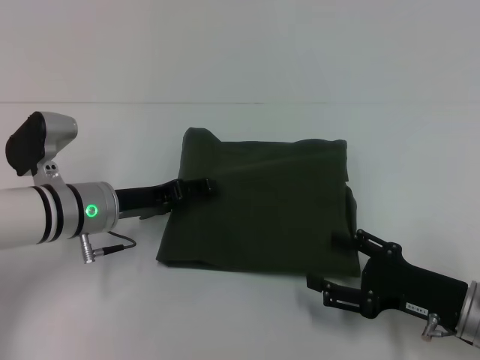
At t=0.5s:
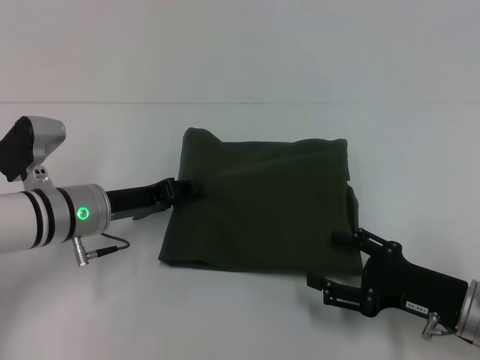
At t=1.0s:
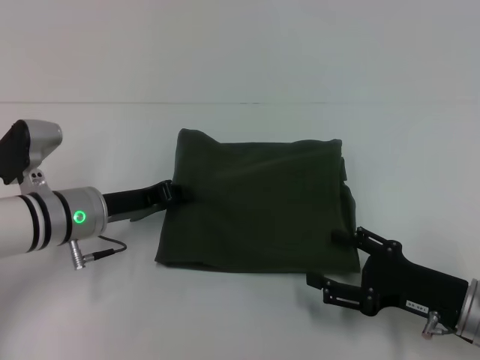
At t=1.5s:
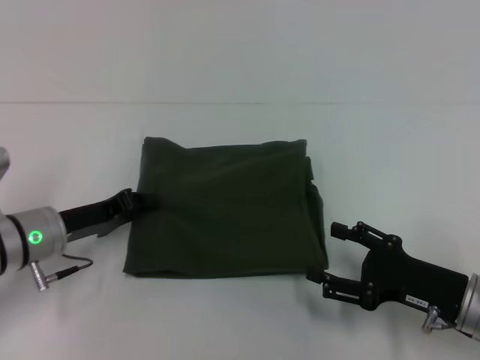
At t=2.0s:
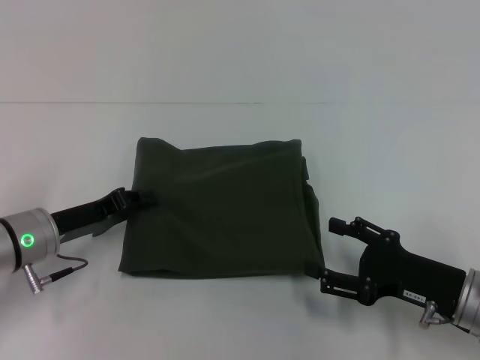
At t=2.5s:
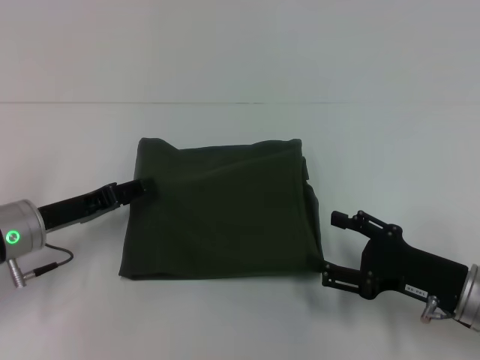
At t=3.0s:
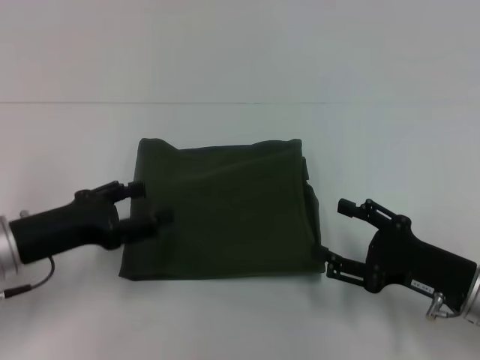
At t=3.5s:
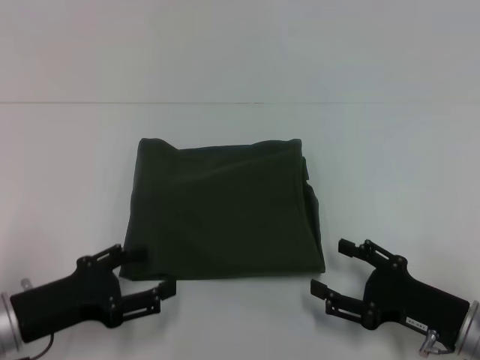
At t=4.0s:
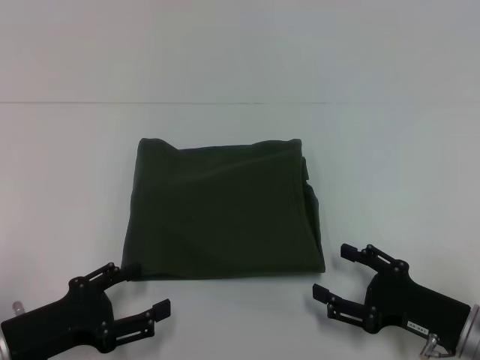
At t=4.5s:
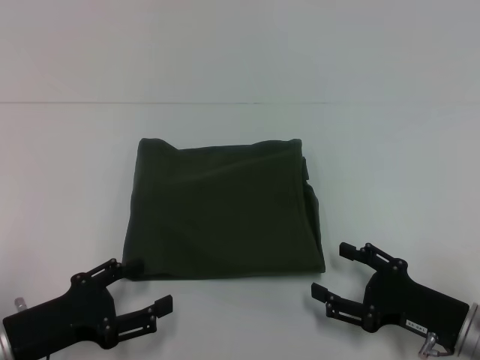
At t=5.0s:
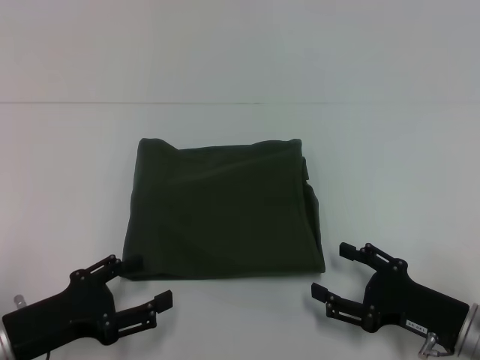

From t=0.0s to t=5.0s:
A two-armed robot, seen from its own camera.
From t=0.0s to t=2.5s: The left gripper is displaced to the left by roughly 5 cm, and closes up.
From t=2.5s to t=5.0s: The left gripper travels backward by roughly 10 cm, and opens up.

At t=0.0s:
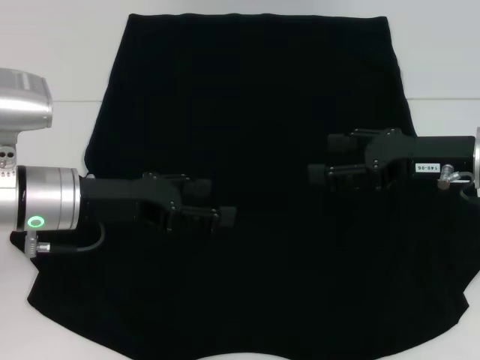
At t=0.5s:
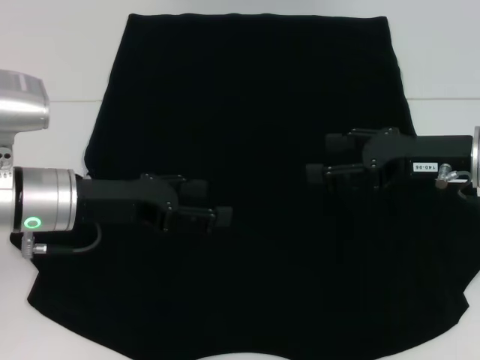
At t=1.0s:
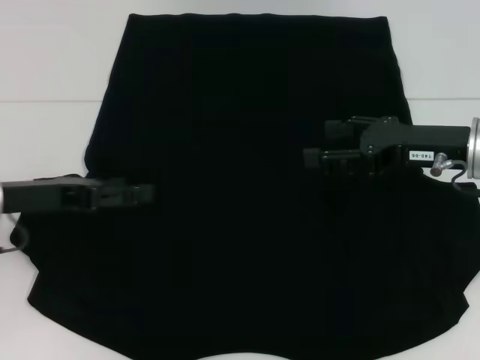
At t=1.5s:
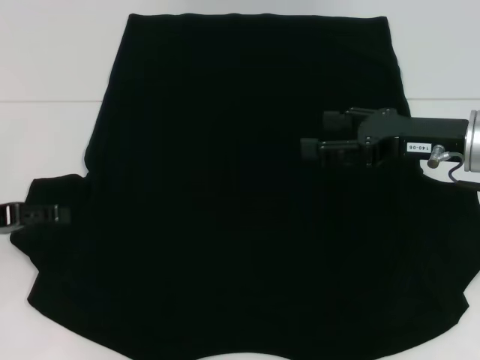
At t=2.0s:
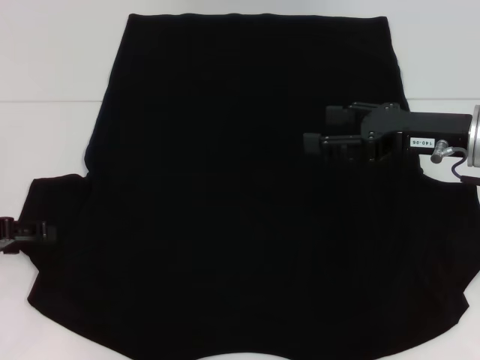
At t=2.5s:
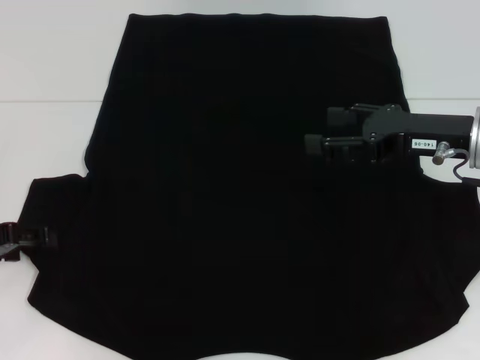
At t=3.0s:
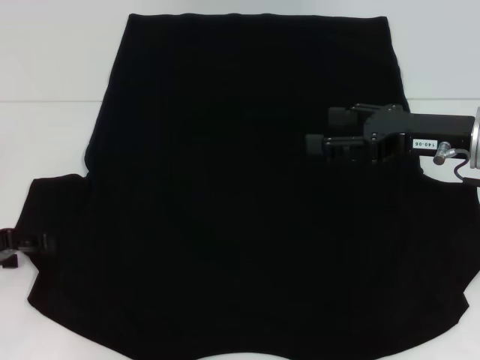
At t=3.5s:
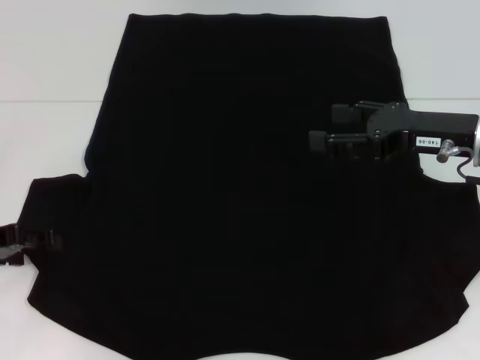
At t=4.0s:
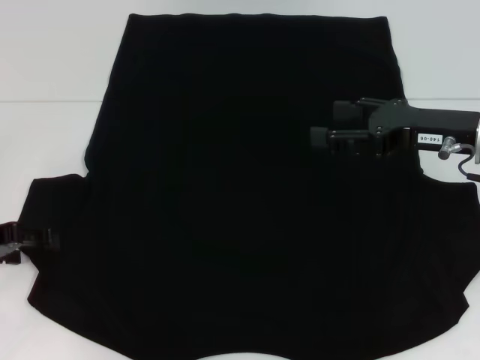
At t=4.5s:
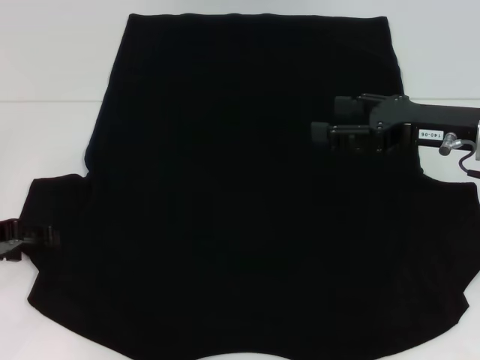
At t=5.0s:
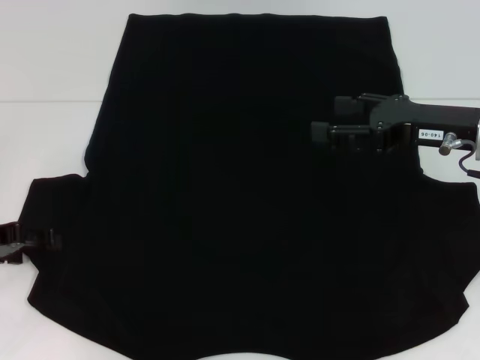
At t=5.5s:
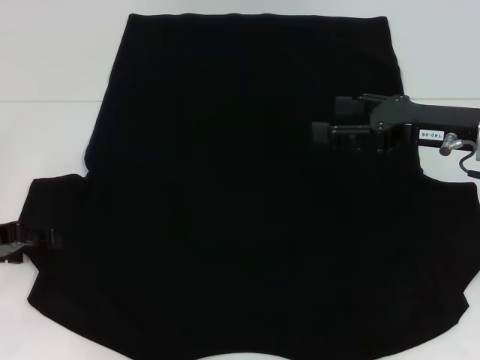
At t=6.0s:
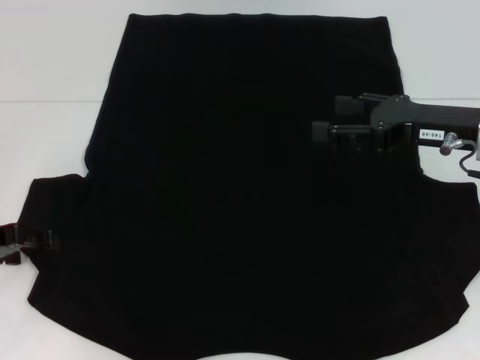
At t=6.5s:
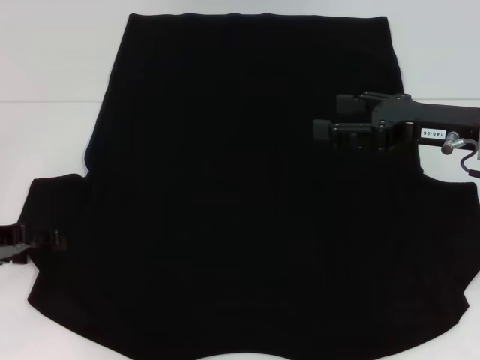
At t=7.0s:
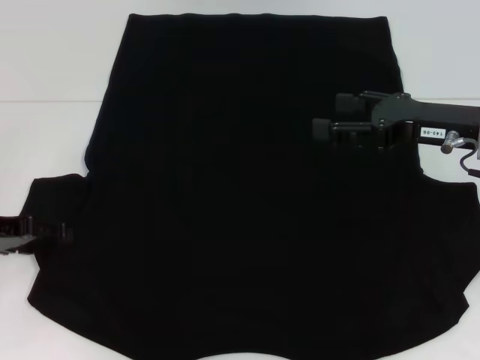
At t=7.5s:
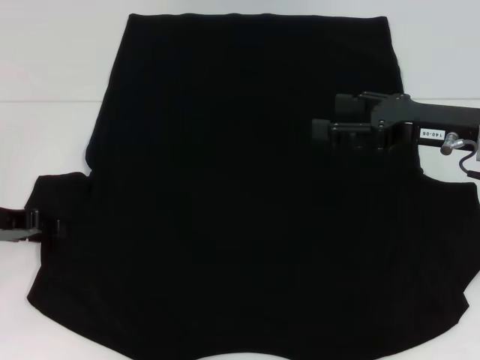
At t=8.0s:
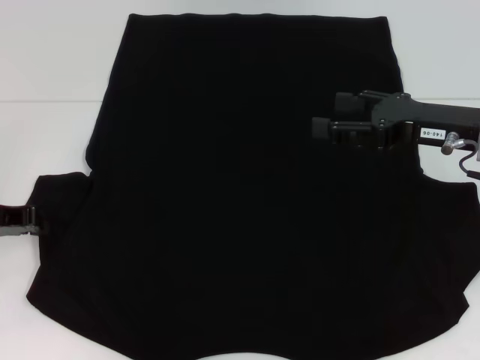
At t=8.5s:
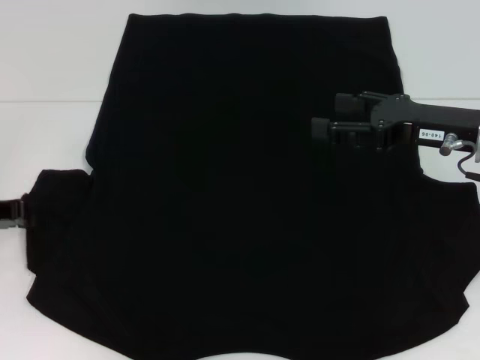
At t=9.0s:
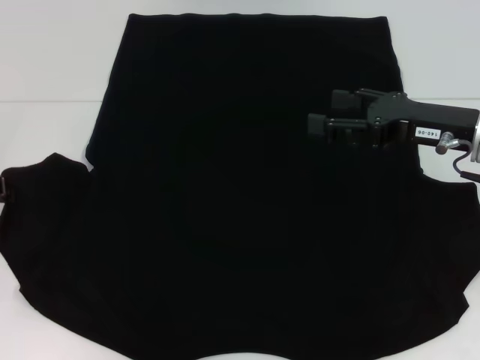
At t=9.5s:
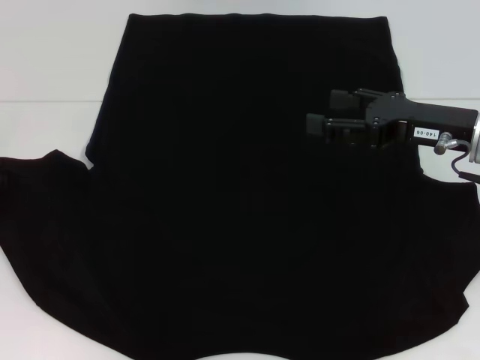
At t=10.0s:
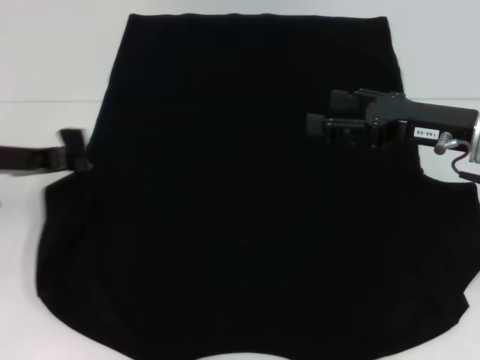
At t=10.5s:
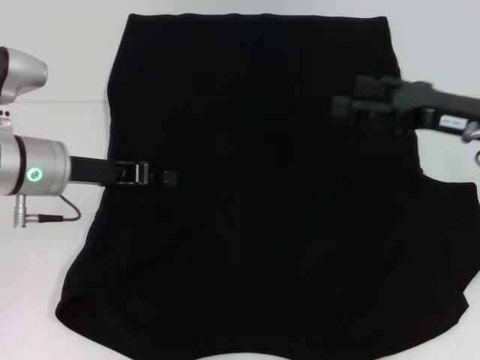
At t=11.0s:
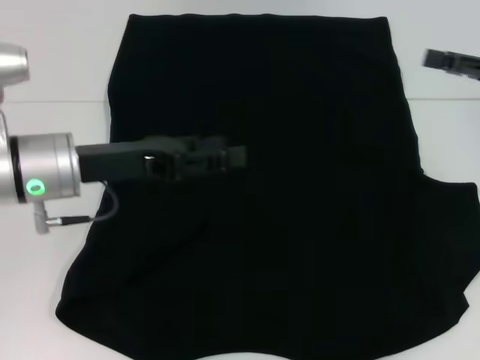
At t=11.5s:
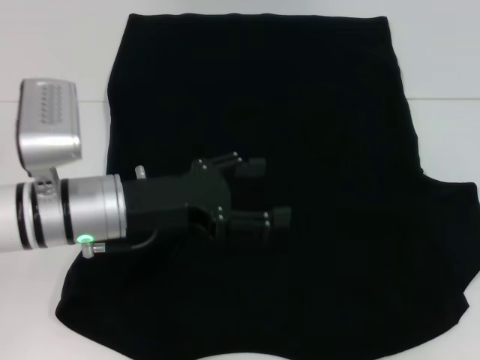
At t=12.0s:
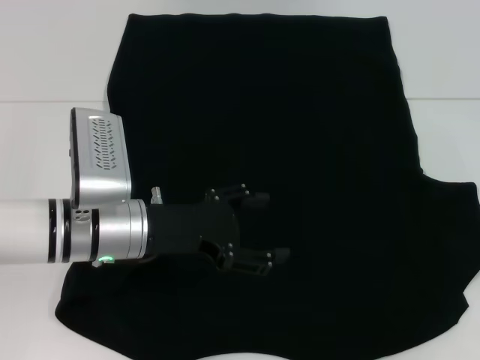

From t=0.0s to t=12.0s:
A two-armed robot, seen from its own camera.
Step, from t=0.0s to t=10.5s: Fold the bottom left sleeve with your left hand.
From t=0.0s to t=2.0s: The left gripper moves to the left, about 15 cm.
From t=2.0s to t=4.0s: The grippers make only small movements.
From t=4.0s to t=6.0s: The two grippers keep their place.
From t=6.0s to t=8.0s: The left gripper closes.
From t=8.0s to t=10.0s: The grippers make only small movements.
From t=10.0s to t=12.0s: The grippers both shift to the right by about 15 cm. The left gripper opens its fingers.

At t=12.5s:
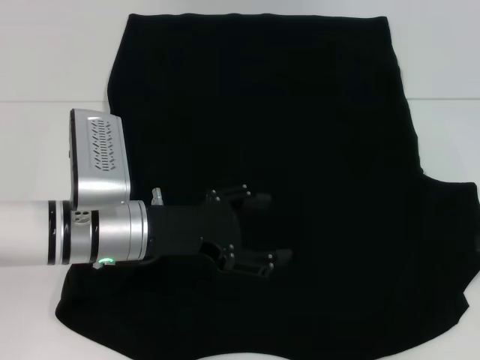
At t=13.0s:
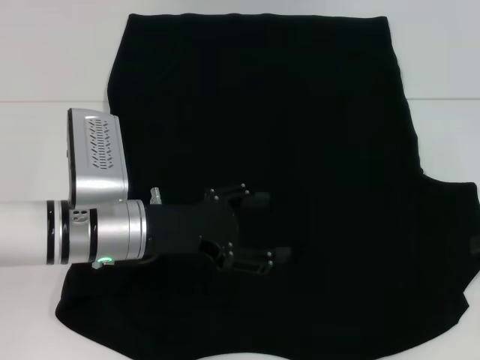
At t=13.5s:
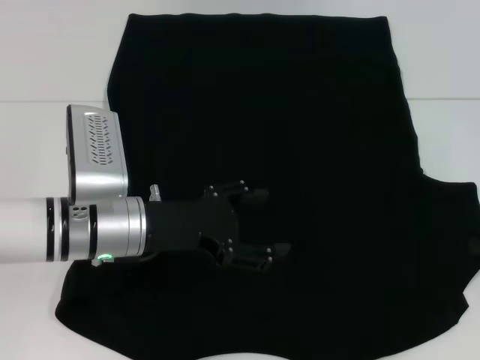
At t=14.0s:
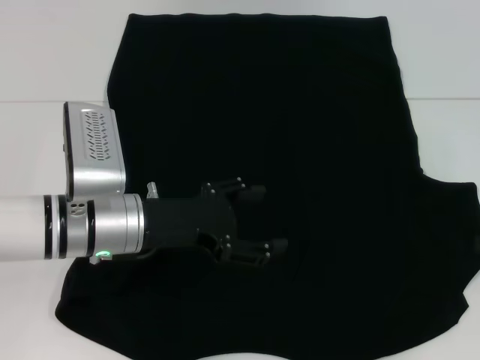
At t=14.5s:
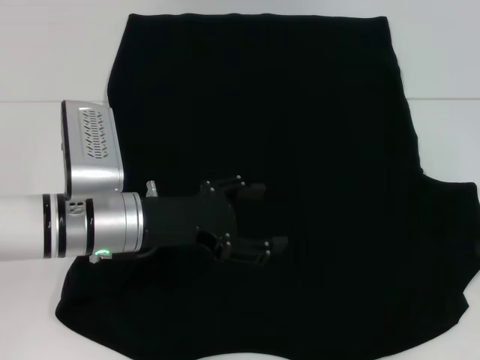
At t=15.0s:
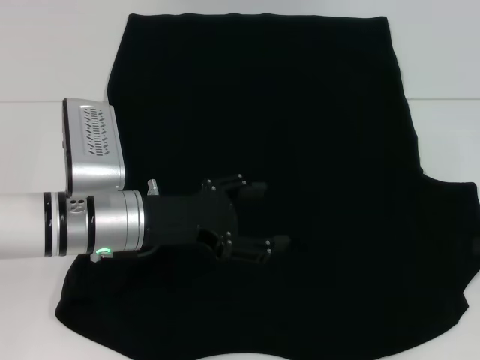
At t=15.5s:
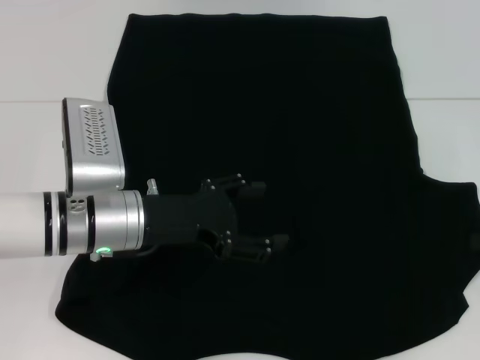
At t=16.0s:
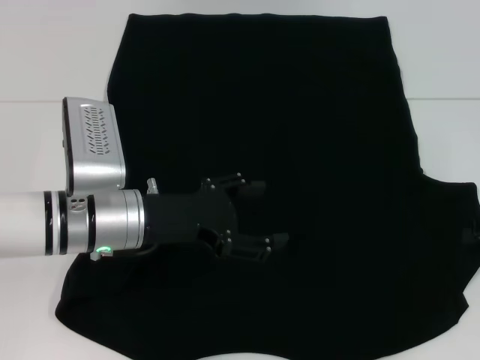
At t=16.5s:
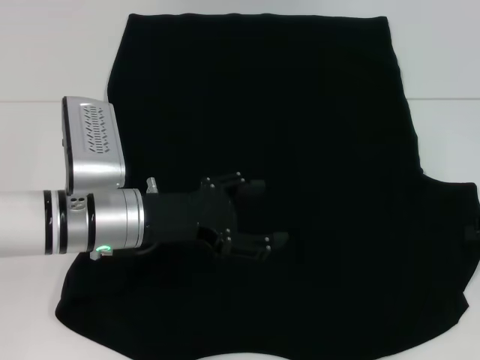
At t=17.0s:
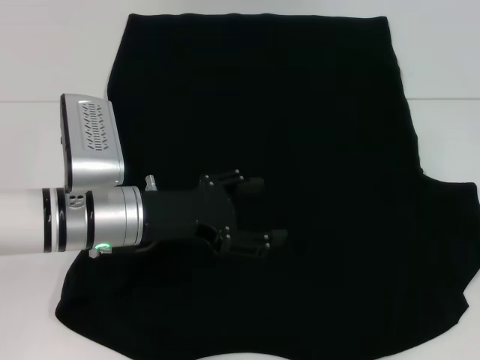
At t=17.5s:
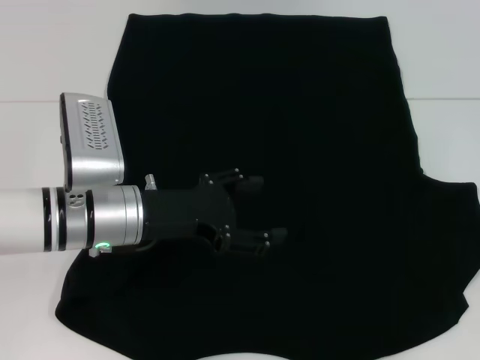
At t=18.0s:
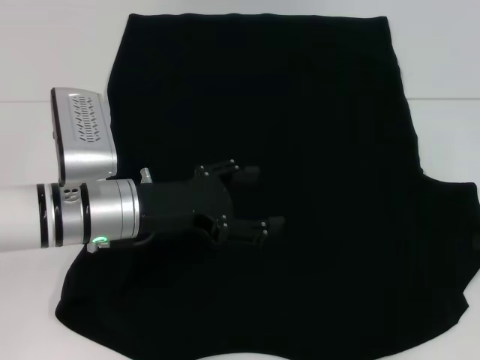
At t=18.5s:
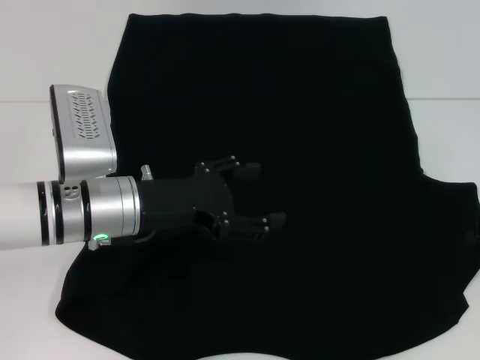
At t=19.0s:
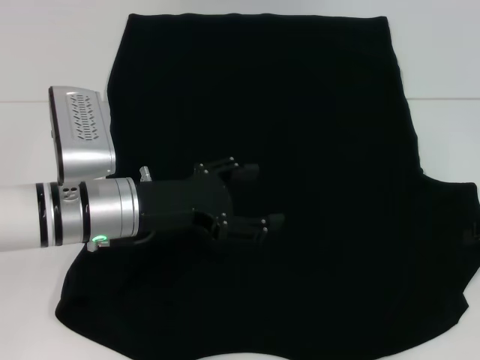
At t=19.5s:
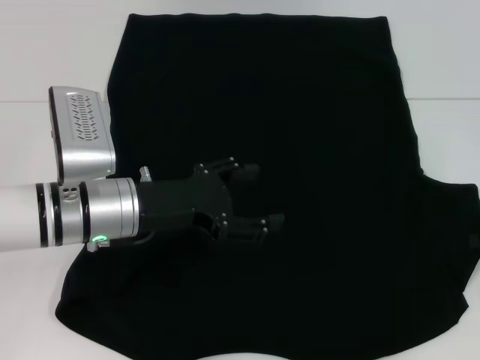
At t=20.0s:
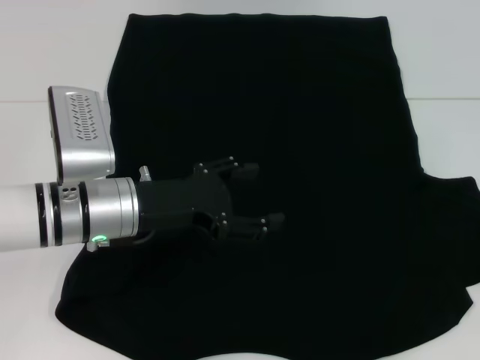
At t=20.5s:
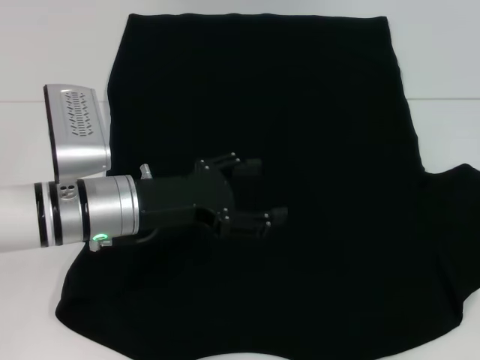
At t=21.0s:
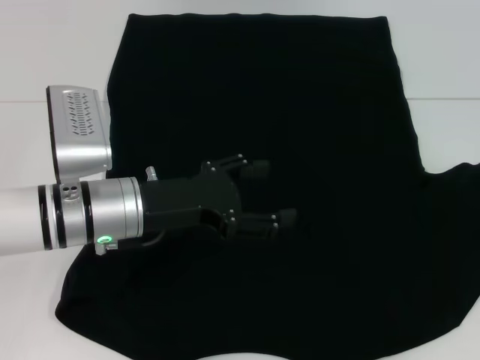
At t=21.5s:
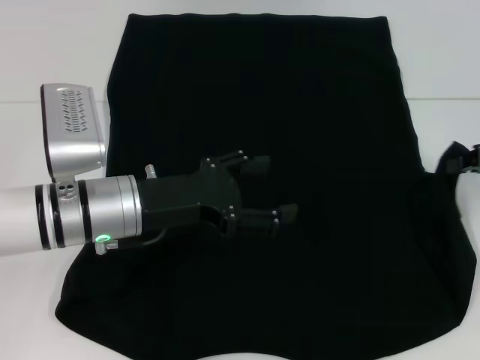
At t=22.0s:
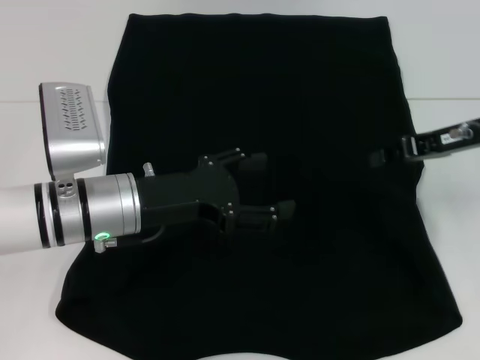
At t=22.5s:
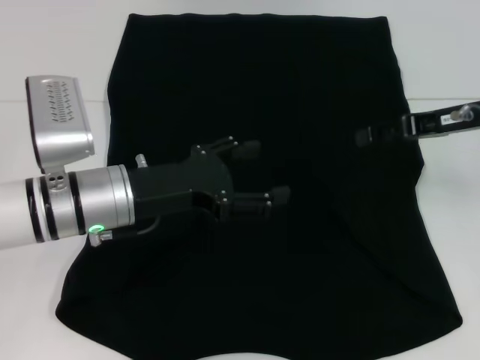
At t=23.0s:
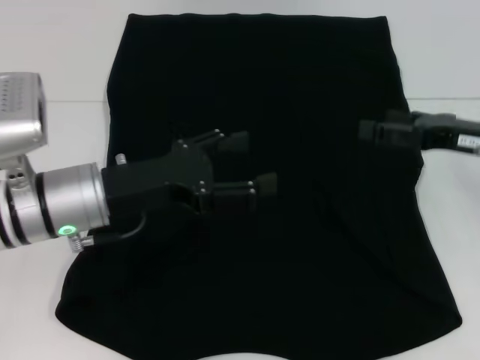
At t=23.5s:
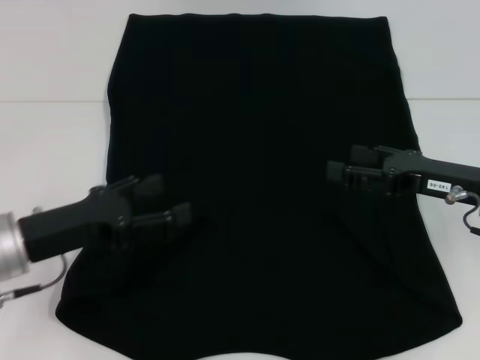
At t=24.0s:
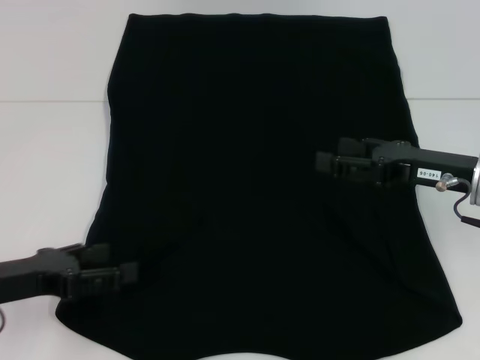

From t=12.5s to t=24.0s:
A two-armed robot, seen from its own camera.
Step, from t=12.5s to t=22.5s: Fold the bottom right sleeve with your right hand.
From t=14.5s to t=16.5s: There are only small adjustments of the grippers.
From t=20.0s to t=22.0s: The right gripper is displaced to the left and forward by about 10 cm.
From t=22.0s to t=24.0s: The right gripper is displaced backward by roughly 5 cm, and opens. The left gripper is displaced to the left and backward by about 15 cm.
